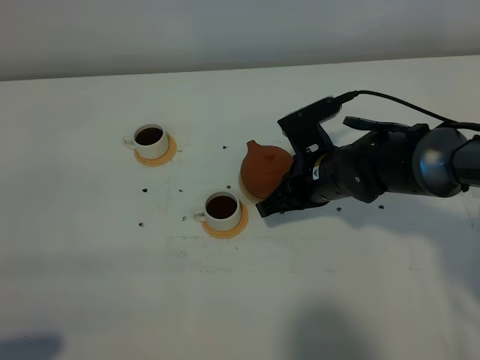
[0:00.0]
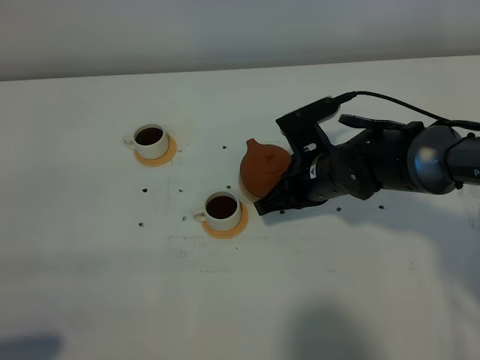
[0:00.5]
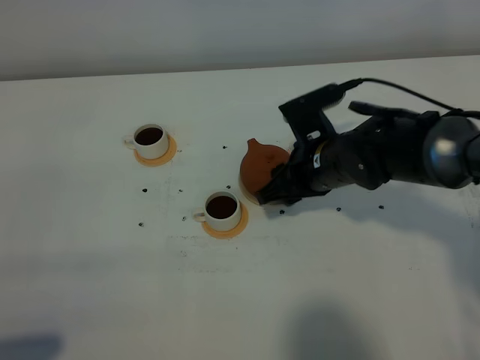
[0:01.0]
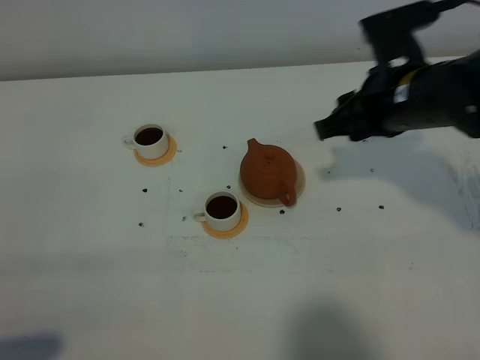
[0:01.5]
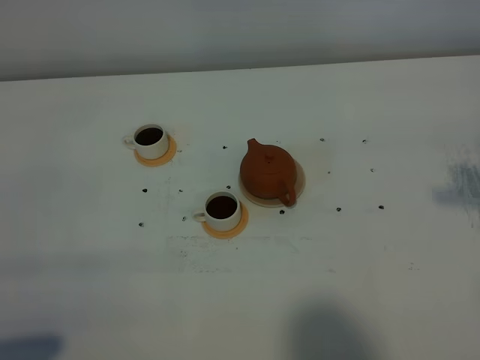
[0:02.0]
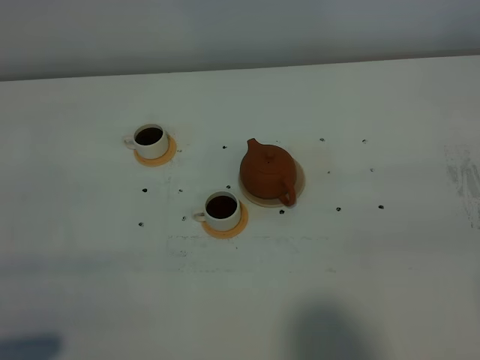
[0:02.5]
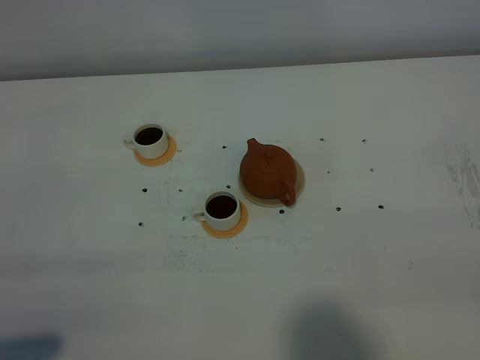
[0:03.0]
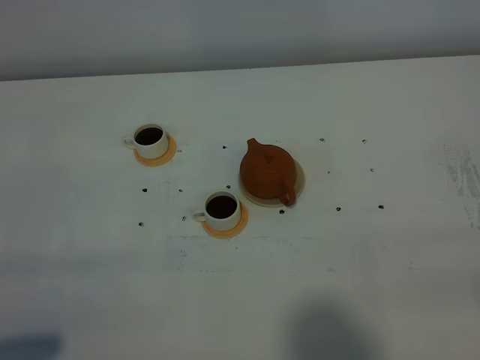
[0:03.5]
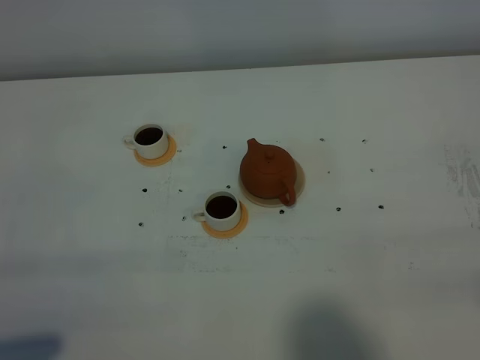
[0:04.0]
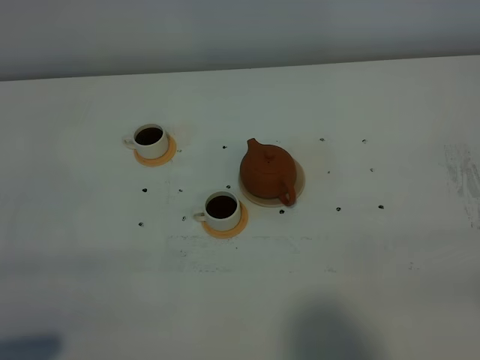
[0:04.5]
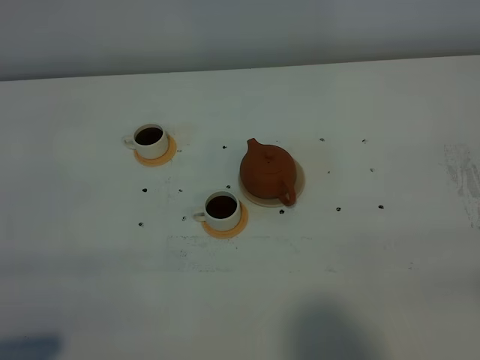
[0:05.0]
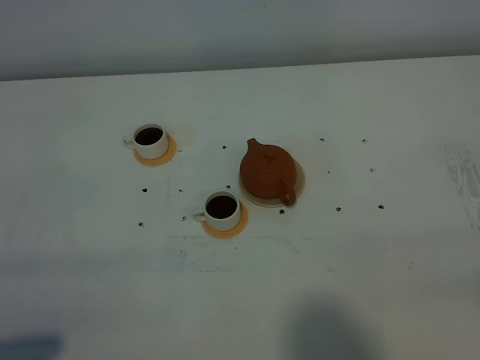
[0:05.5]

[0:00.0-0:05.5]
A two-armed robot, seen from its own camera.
Task of the whole recording: grasp the brown teapot and pour the tea into the two white teacups one by one, put the brown teapot back in its original place.
0:00.0 to 0:02.0: The right gripper goes some 35 cm upward, to the right and backward, and opens.
0:03.5 to 0:05.5: The two grippers keep their place.

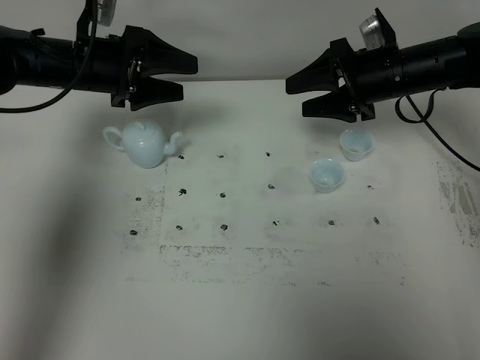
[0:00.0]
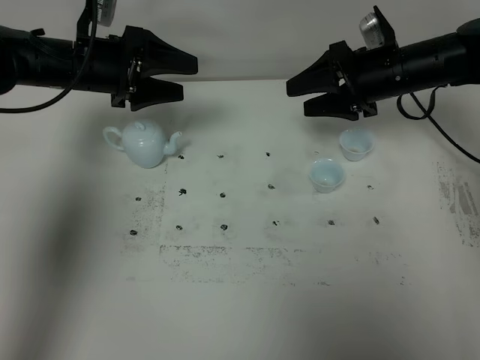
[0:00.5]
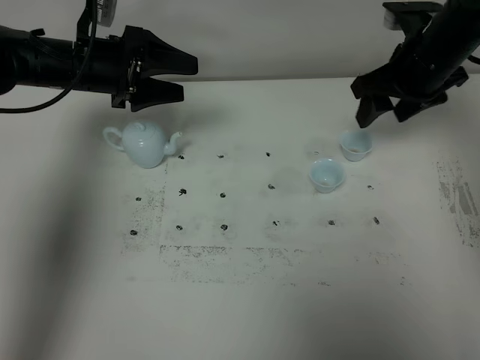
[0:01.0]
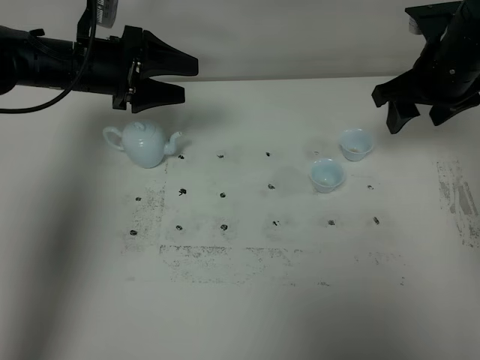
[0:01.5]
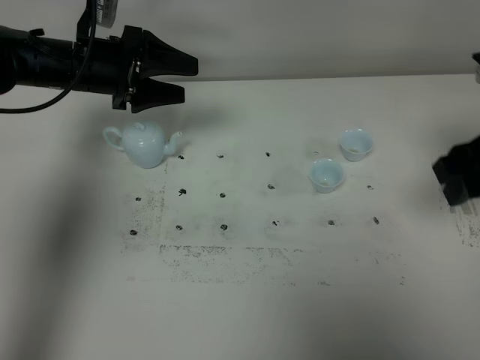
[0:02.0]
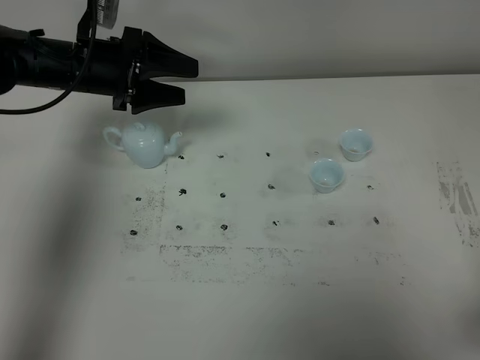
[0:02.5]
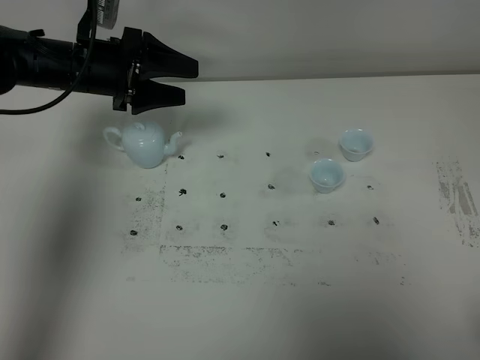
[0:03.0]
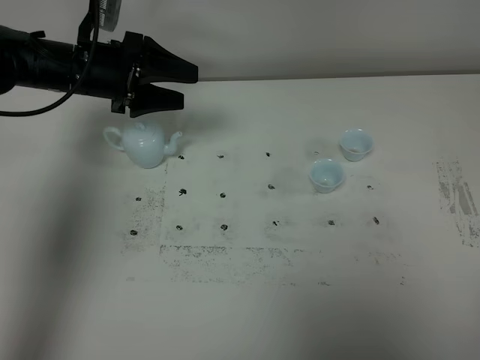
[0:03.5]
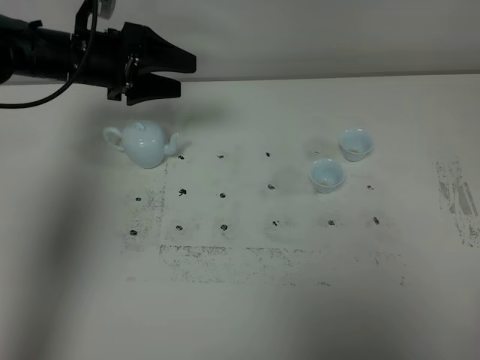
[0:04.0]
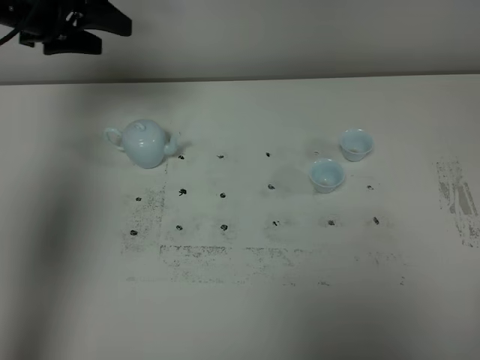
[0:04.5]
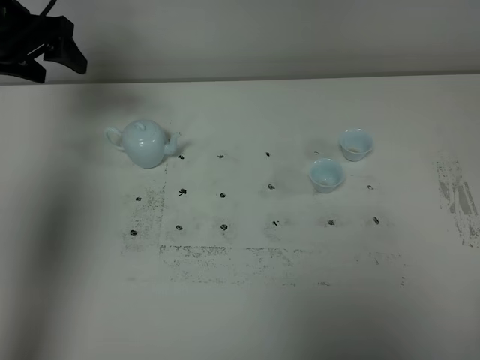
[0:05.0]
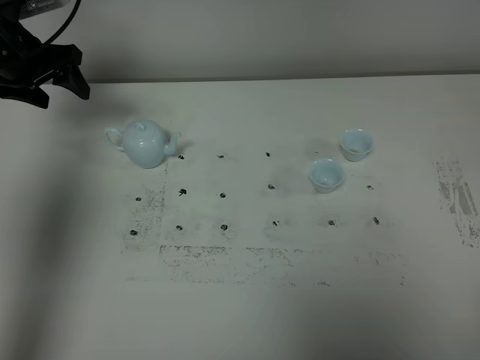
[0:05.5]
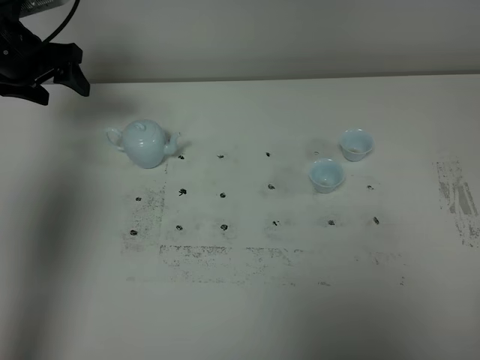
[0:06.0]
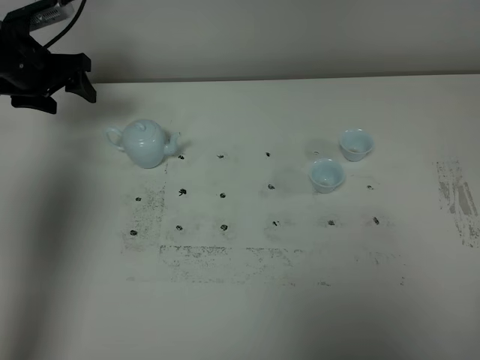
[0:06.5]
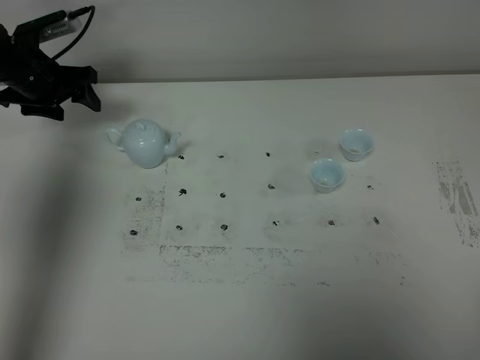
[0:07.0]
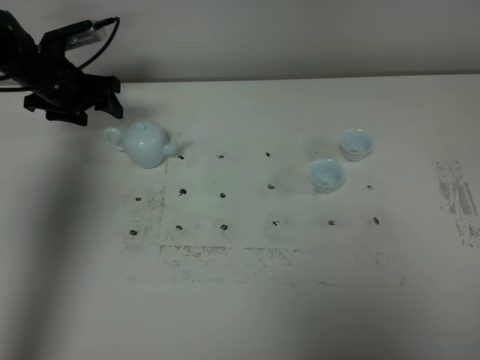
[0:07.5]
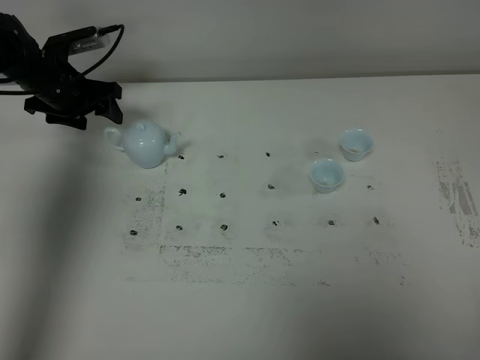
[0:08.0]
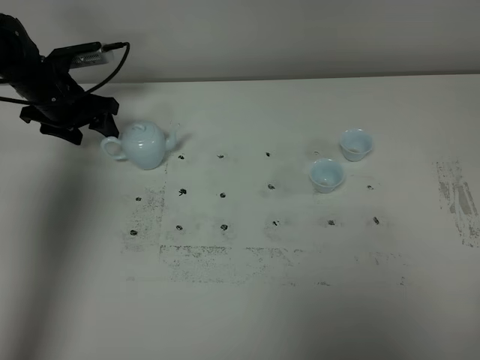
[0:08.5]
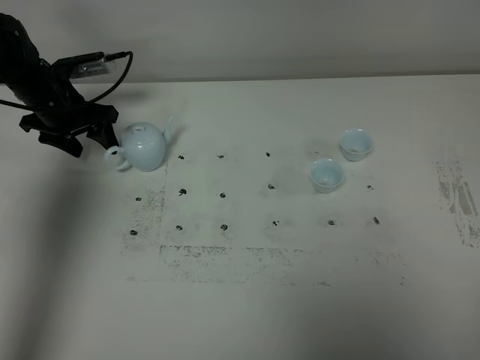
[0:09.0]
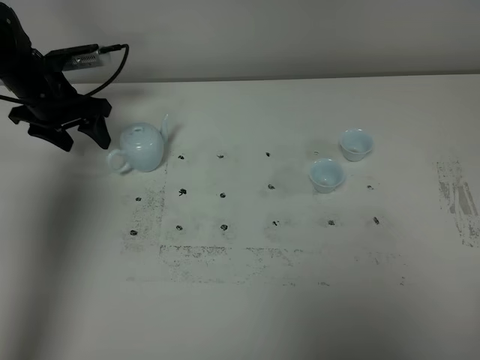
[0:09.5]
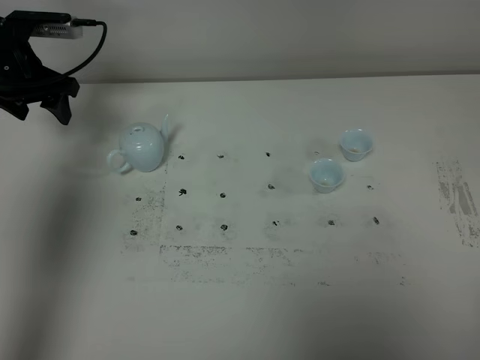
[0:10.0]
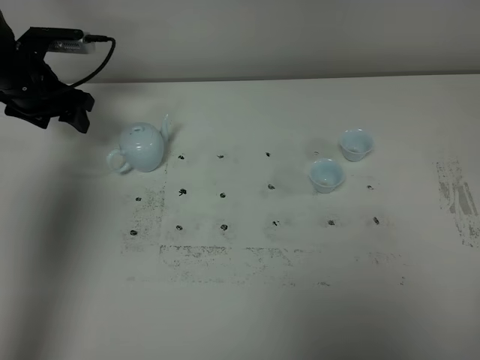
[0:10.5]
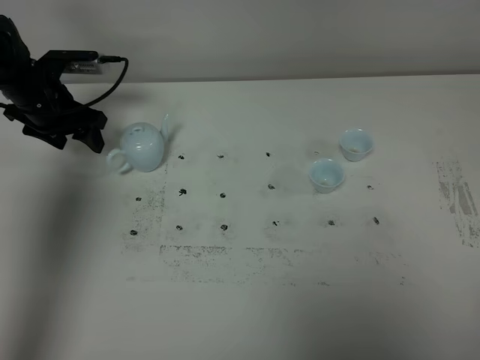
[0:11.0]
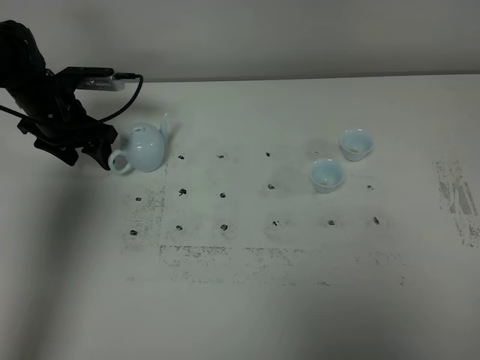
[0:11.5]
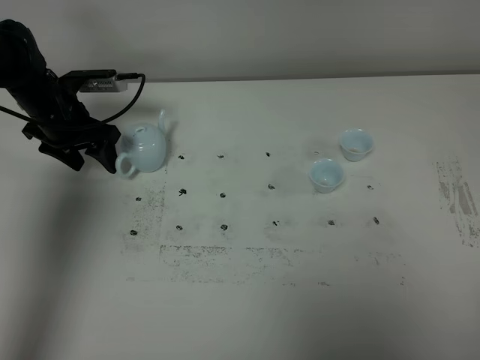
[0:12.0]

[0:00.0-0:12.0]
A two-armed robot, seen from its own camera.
Task of the whole recording: grasp the blue porcelain teapot and pour the tea into the two blue porcelain teacups one by one, put the blue porcelain teapot back in its original place.
0:00.0 to 0:02.0: The right gripper moves backward and upward, about 20 cm.
0:02.0 to 0:04.0: The right gripper moves backward, about 25 cm, and closes up.
0:04.0 to 0:06.0: The left gripper heads to the left, covering approximately 10 cm.
0:06.0 to 0:08.0: The left gripper travels downward by roughly 10 cm.
0:08.0 to 0:10.0: The left gripper is displaced upward by some 10 cm.
0:10.0 to 0:12.0: The left gripper shifts roughly 10 cm downward.

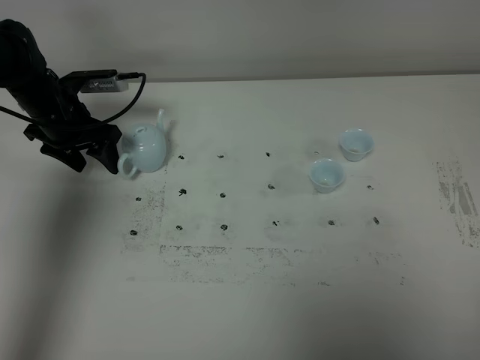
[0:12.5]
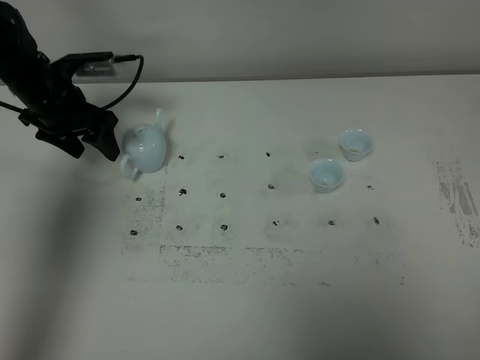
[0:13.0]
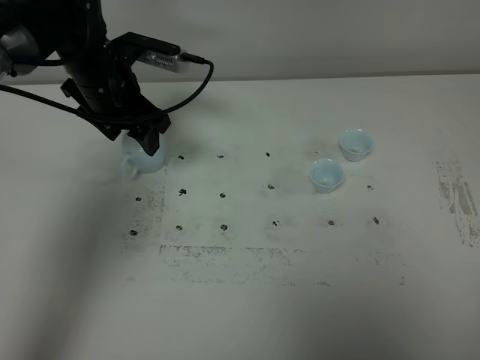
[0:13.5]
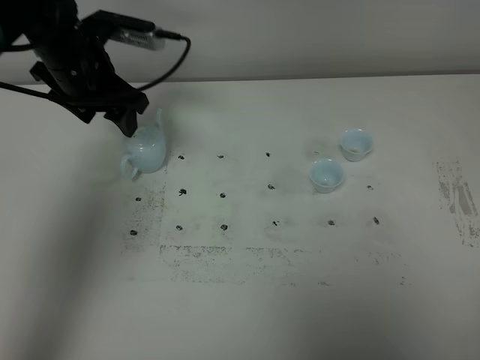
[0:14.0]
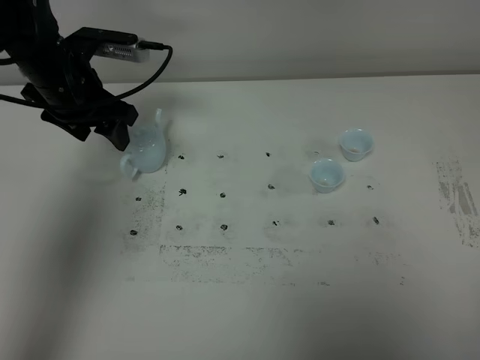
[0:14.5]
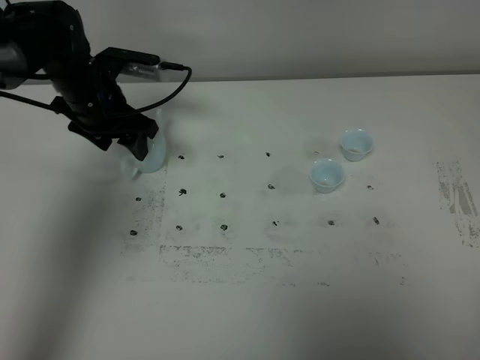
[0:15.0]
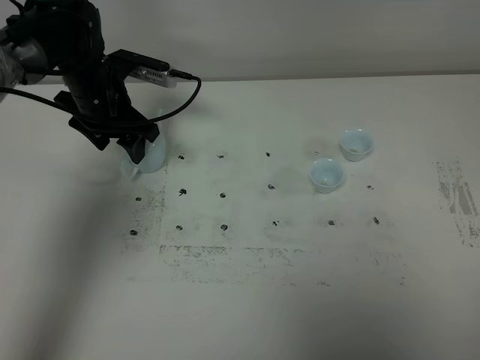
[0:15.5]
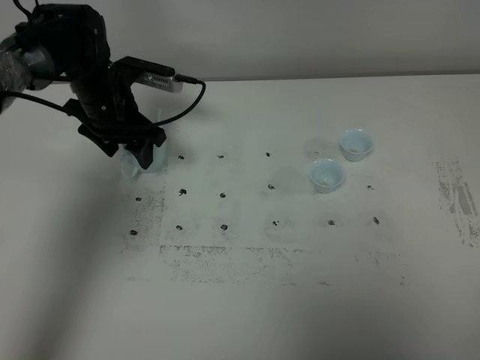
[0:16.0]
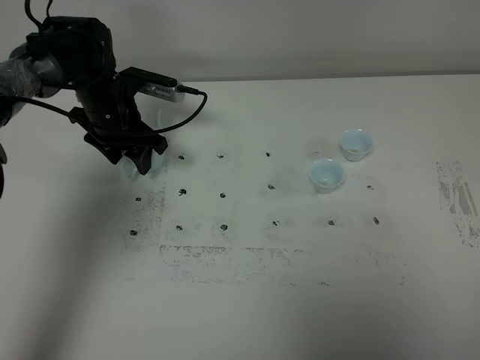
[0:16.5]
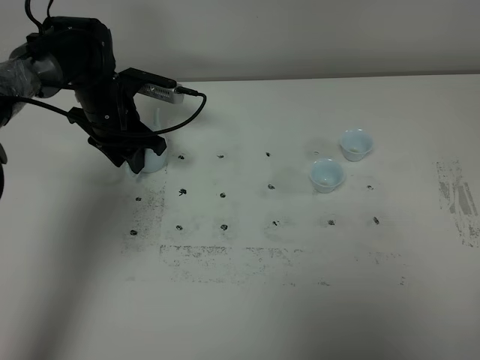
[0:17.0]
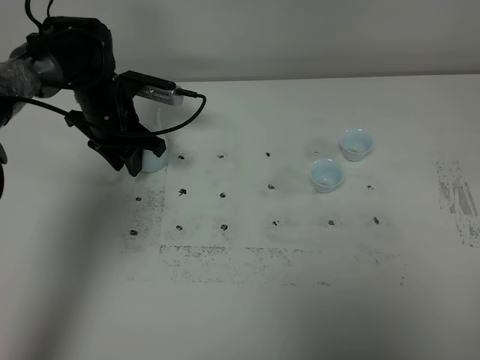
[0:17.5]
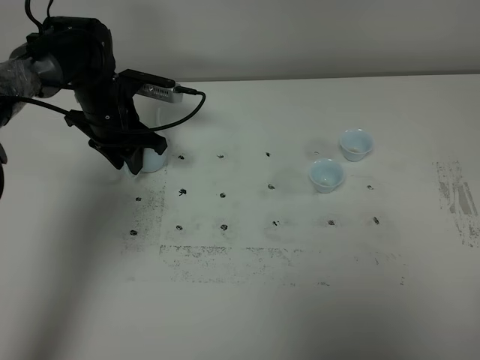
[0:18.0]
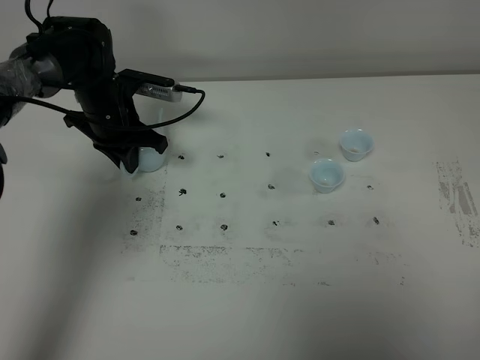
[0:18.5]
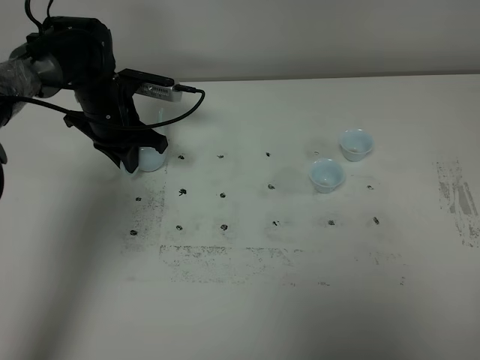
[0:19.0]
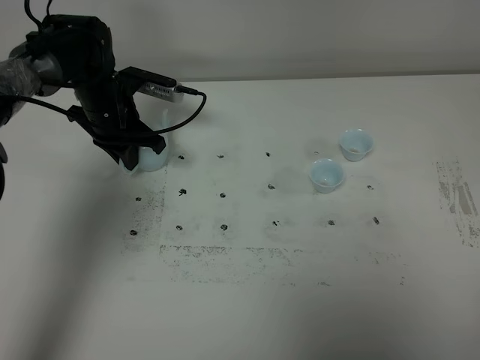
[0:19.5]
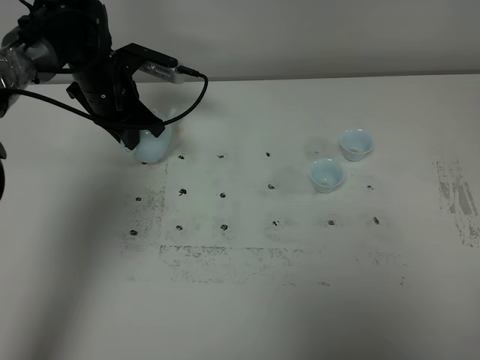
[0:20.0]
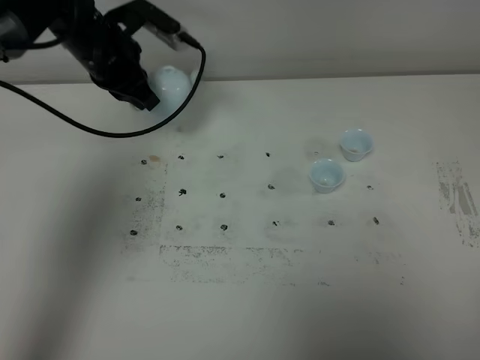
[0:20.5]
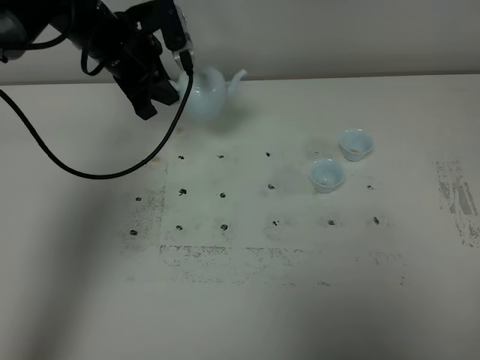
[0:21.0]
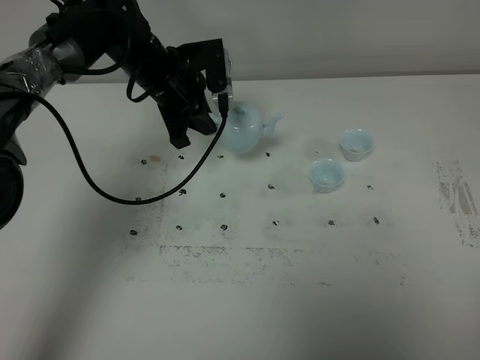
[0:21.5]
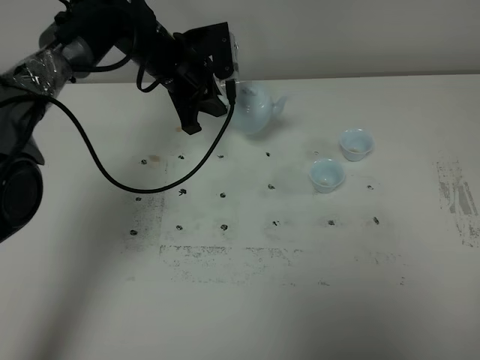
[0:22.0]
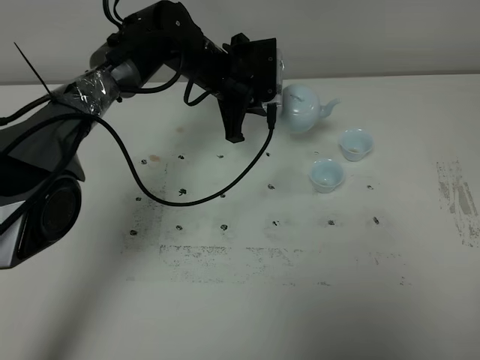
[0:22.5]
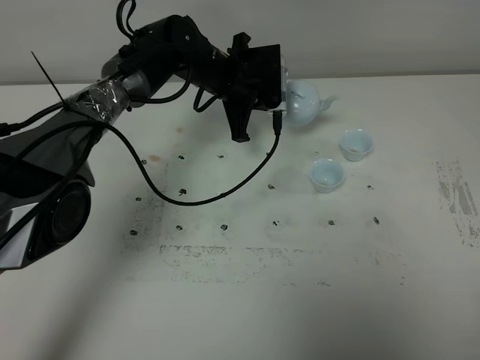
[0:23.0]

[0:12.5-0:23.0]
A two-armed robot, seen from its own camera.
Task of the whole recording: grasp the blue porcelain teapot and pour the tea into the two blue porcelain teacups one by one, put the blue porcelain teapot back in its original place.
Step, 0:12.5 to 0:20.0: Pick up the teapot with the left gripper.
0:12.5 to 0:14.5: The left gripper shifts some 10 cm upward and to the right.
0:14.5 to 0:16.5: The left gripper shifts about 10 cm downward.
0:16.5 to 0:19.0: The left gripper closes.
0:19.0 to 0:21.0: The left gripper heads upward, covering roughly 10 cm.
0:21.0 to 0:23.0: The left gripper travels to the right and downward by about 15 cm.
